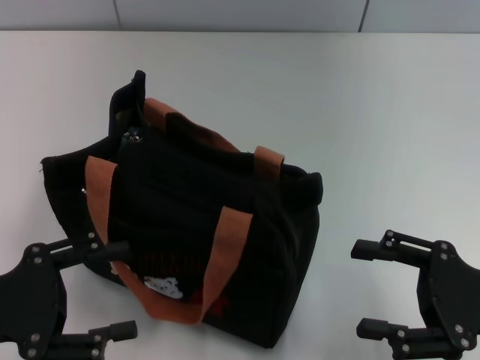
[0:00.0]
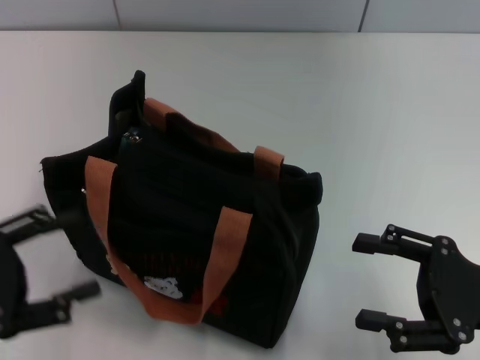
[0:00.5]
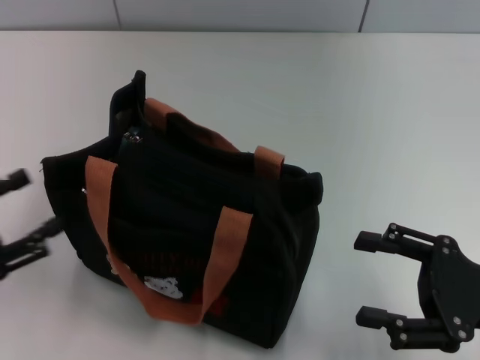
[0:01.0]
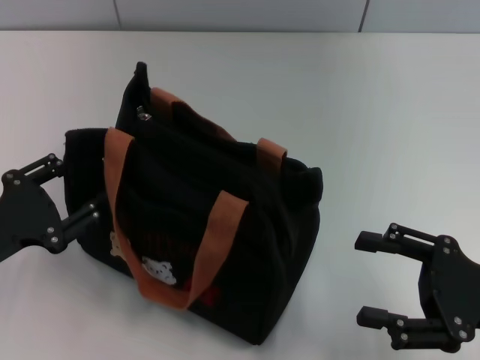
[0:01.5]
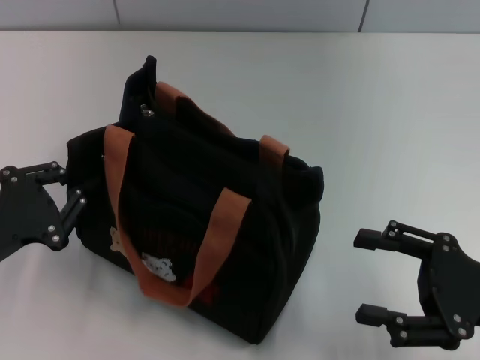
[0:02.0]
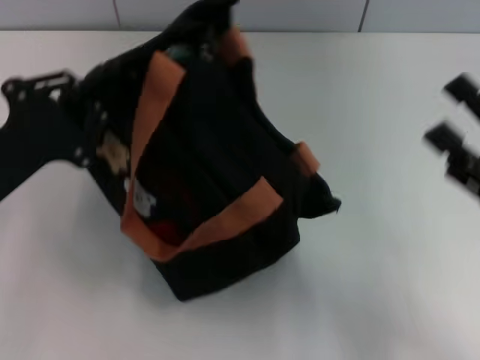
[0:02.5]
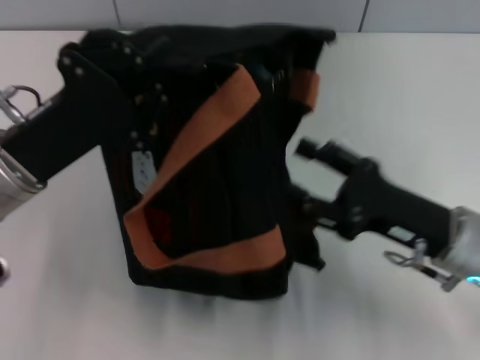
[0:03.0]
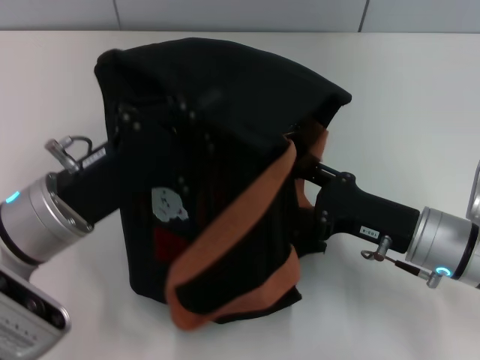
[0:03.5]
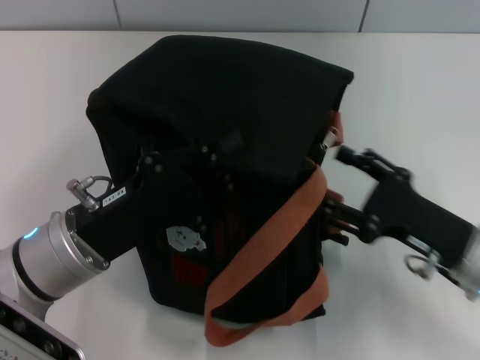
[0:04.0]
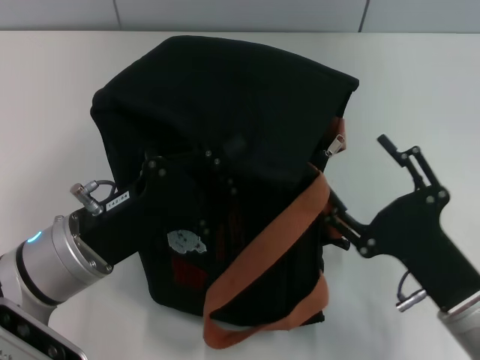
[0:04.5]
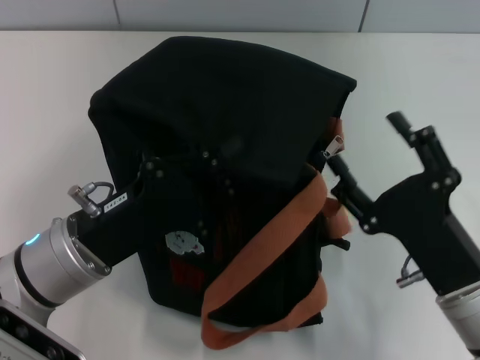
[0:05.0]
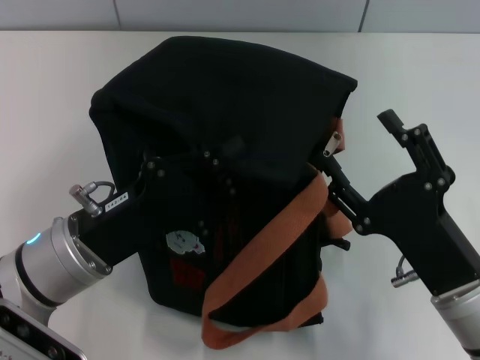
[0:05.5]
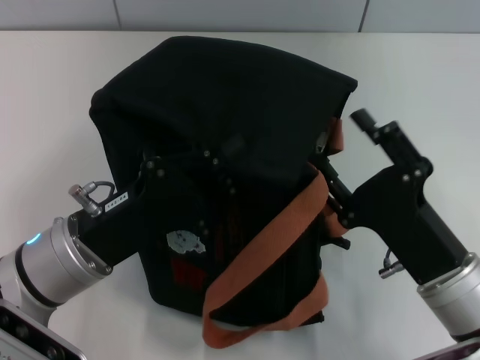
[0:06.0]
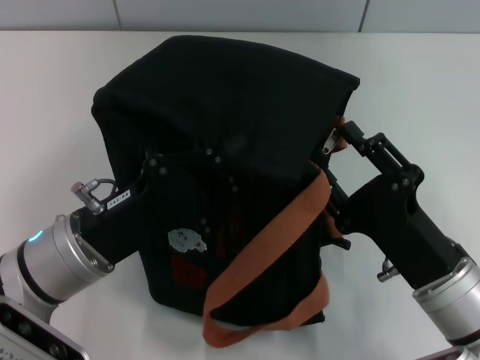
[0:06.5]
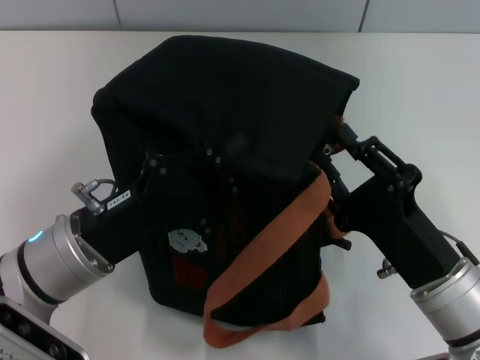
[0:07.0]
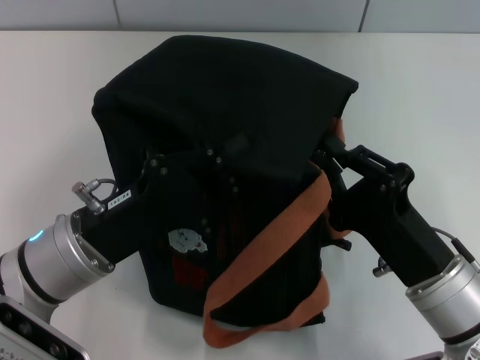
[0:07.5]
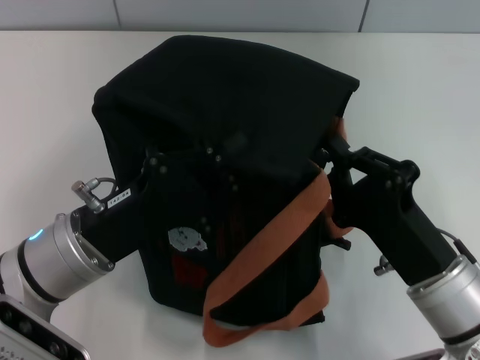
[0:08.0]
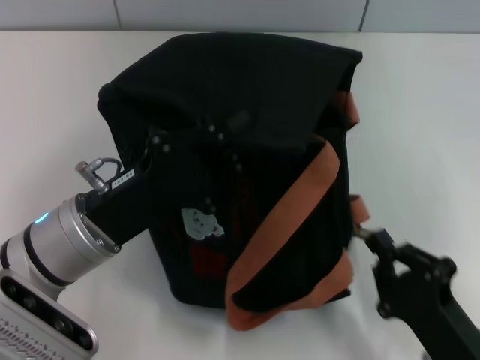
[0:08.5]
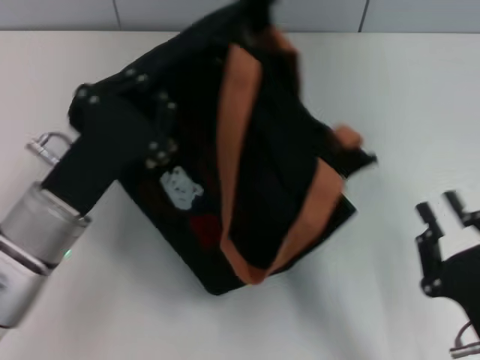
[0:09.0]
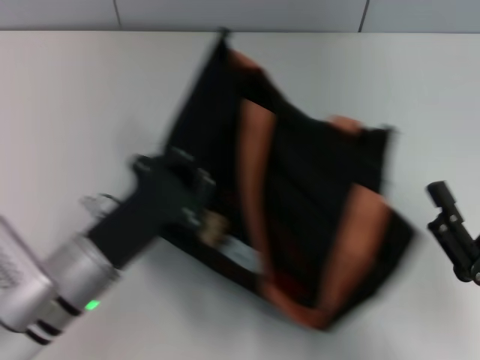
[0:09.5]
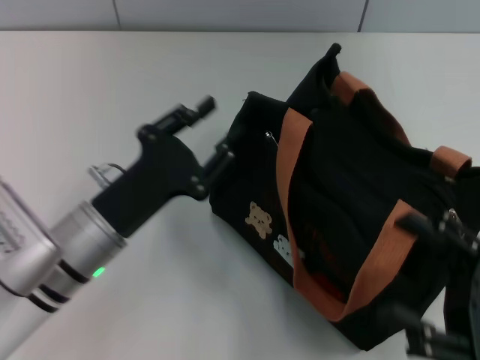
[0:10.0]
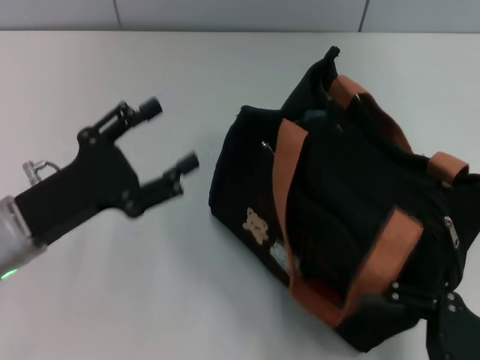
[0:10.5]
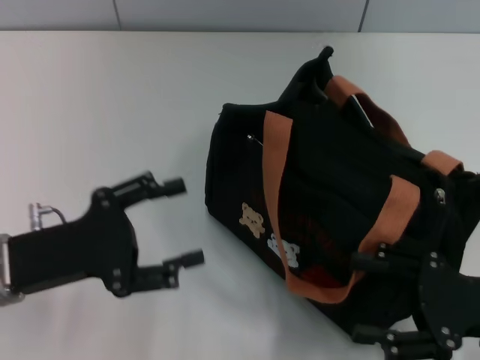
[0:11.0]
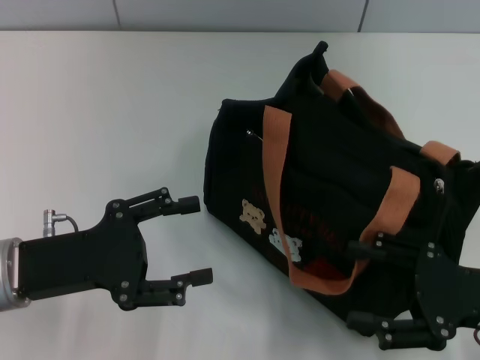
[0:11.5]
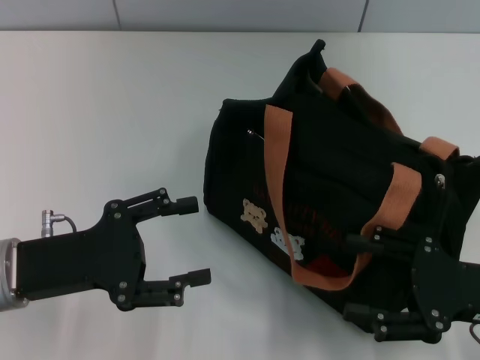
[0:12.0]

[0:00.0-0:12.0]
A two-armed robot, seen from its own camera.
Step, 0:00.0 to 0:08.5: Pull open the zipper with your right hand.
Step, 0:09.0 to 0:09.5: Grab the bag with your left hand.
0:00.0 to 0:02.0: The left gripper shifts by some 5 cm, and closes.
0:02.0 to 0:04.0: The left gripper travels to the right by roughly 10 cm, and closes its fingers.
0:04.0 to 0:06.0: The right gripper travels to the left by about 5 cm.
0:06.0 to 0:08.0: The right gripper closes.
0:08.0 to 0:10.0: The right gripper heads to the right, covering approximately 10 cm, and opens its fingers.
0:10.0 to 0:12.0: The right gripper is displaced forward by some 5 cm. The left gripper heads to the left, covering some 10 cm, and opens up.

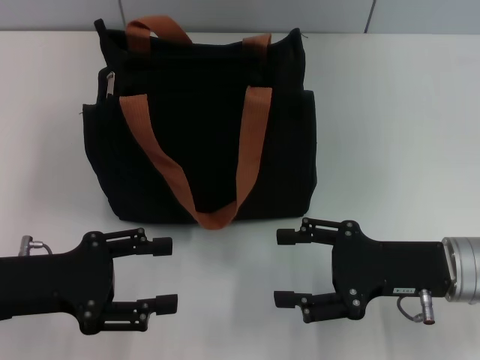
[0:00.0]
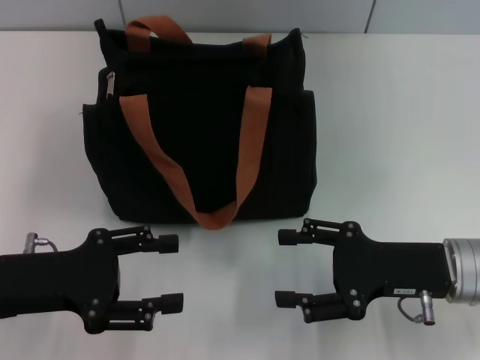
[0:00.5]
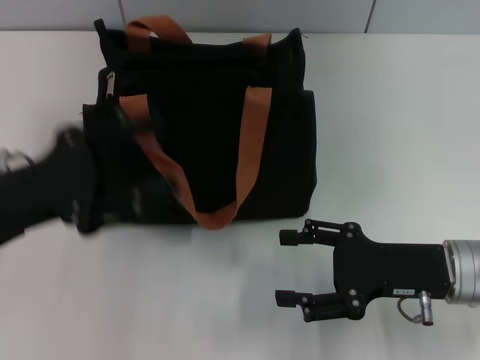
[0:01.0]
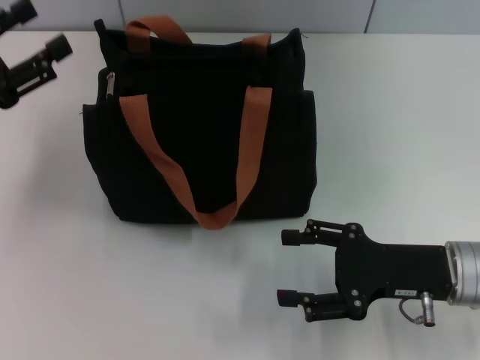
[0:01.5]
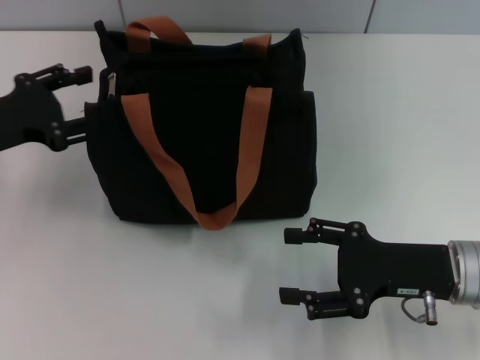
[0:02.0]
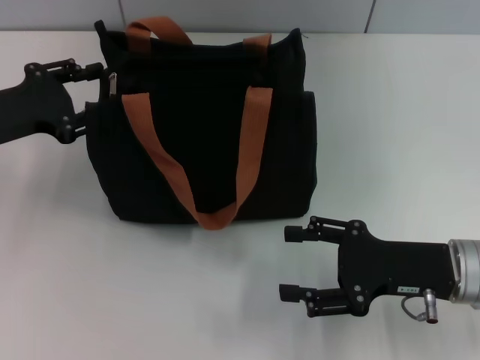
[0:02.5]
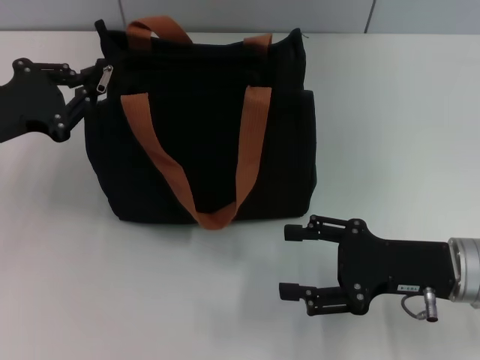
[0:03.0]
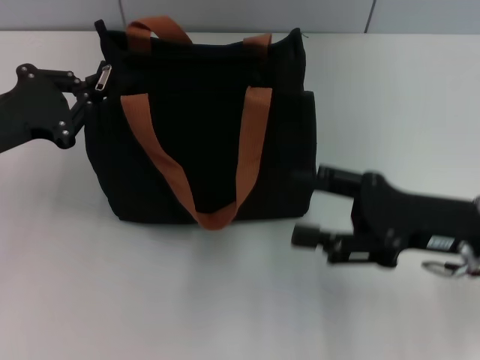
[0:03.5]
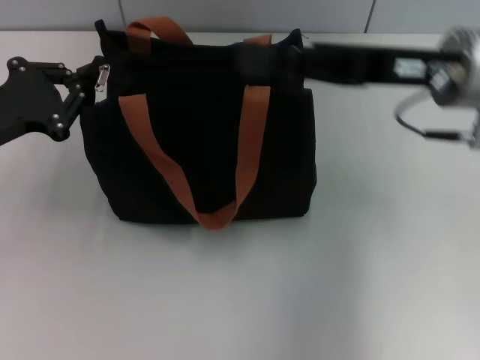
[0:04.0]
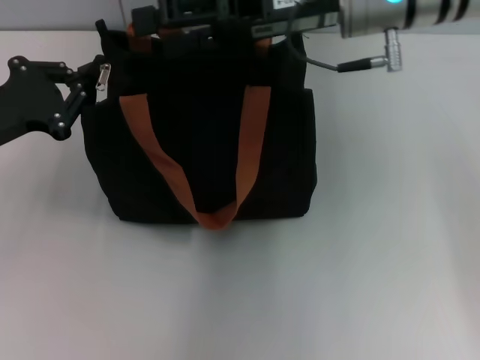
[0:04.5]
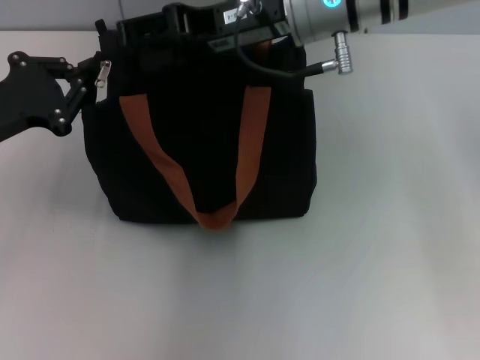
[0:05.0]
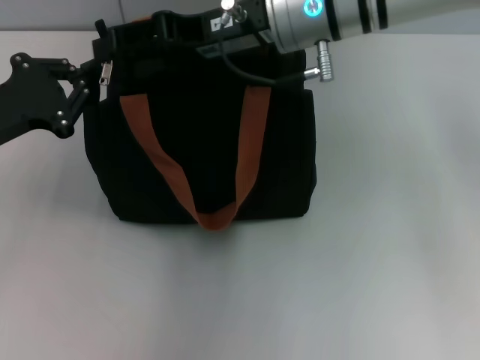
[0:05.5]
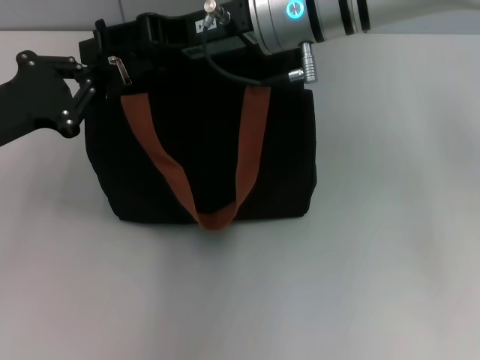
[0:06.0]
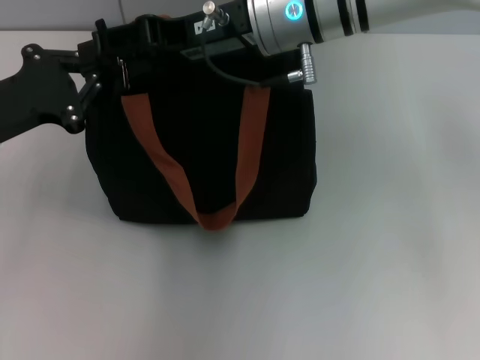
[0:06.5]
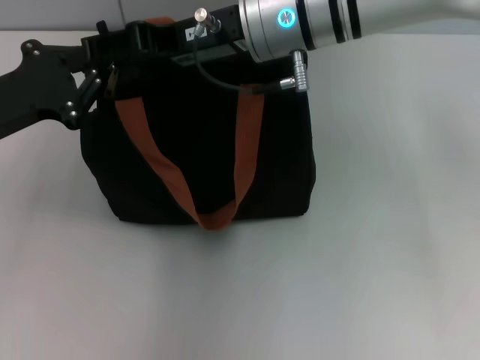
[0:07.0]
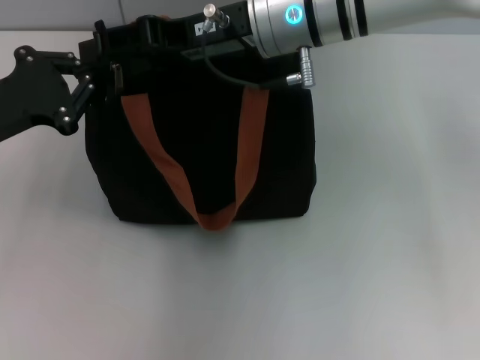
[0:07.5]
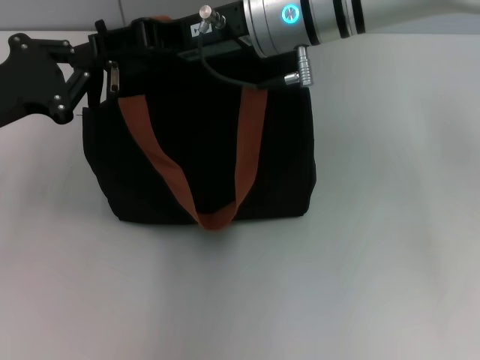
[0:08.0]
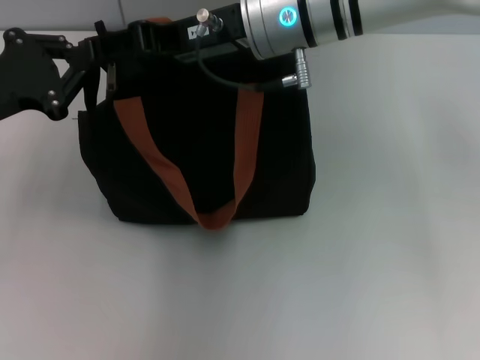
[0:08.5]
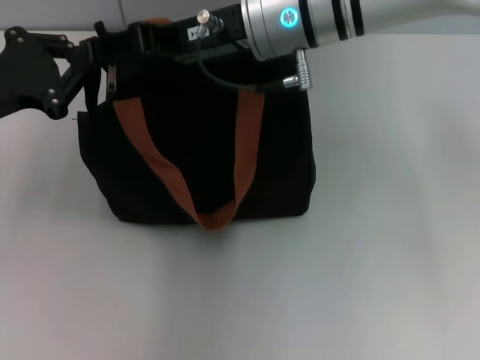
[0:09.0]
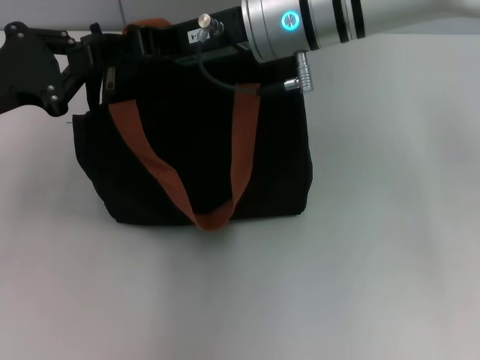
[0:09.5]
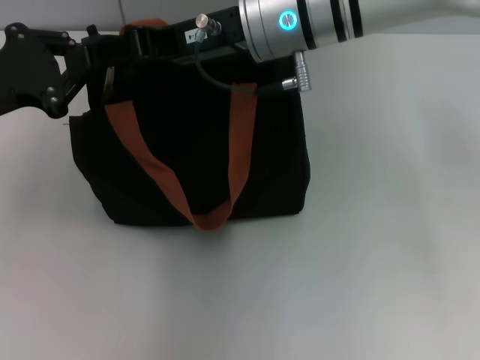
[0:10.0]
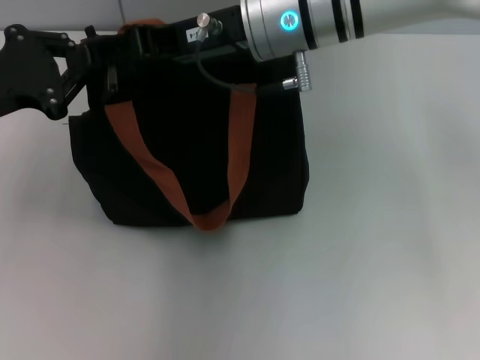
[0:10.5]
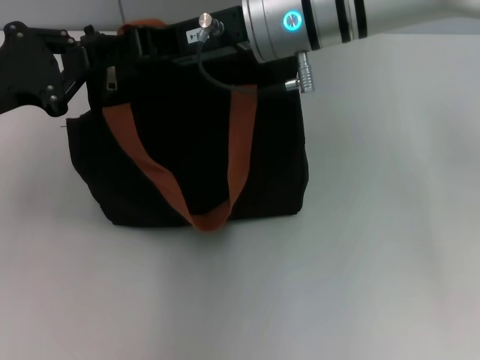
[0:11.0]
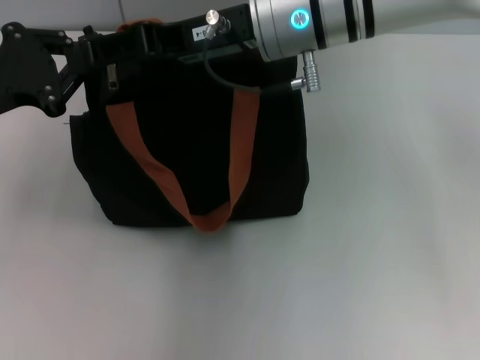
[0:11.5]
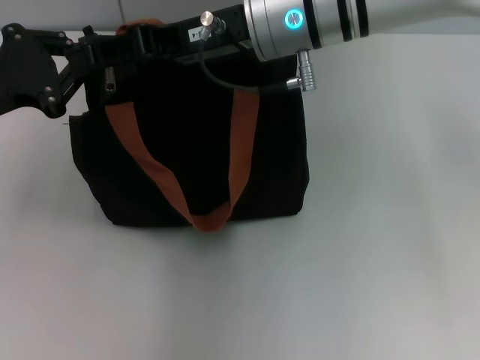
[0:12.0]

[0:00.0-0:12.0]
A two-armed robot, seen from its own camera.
0:00.0 to 0:02.0: The left gripper goes roughly 10 cm forward.
0:02.0 to 0:04.0: The right gripper is displaced upward and forward by approximately 15 cm; the left gripper closes up.
0:04.0 to 0:06.0: The right gripper heads to the left and forward, covering roughly 15 cm.
0:06.0 to 0:10.0: The grippers stay close to where they were, moving slightly.
0:10.0 to 0:12.0: The two grippers keep their place.

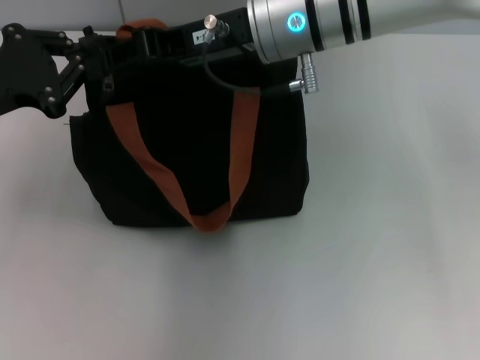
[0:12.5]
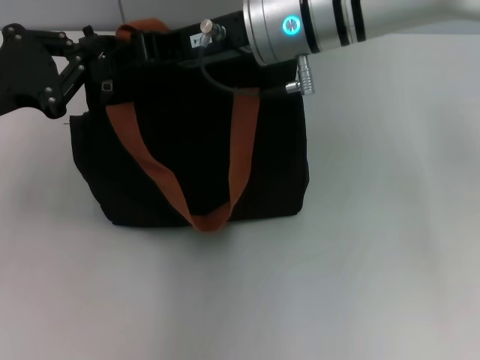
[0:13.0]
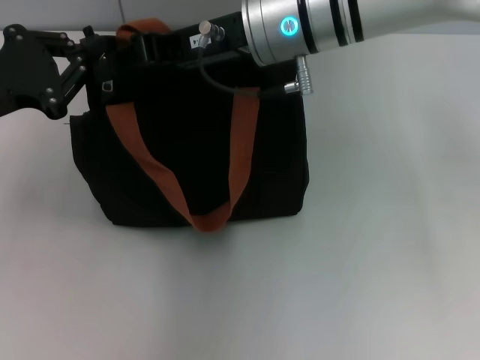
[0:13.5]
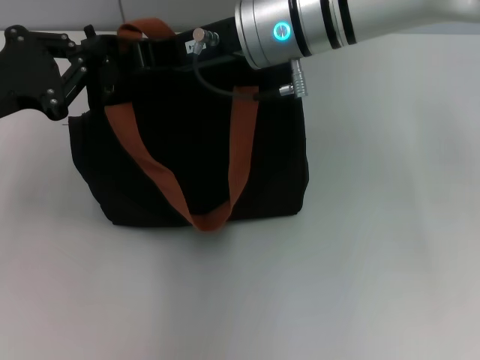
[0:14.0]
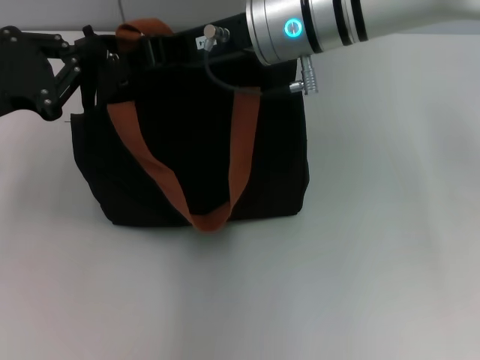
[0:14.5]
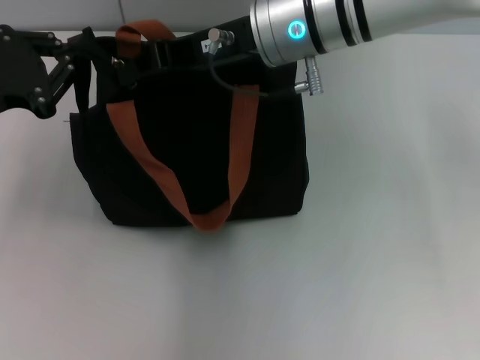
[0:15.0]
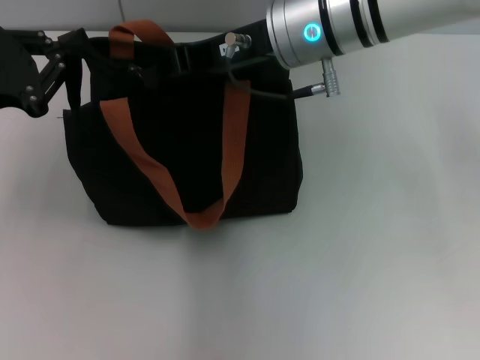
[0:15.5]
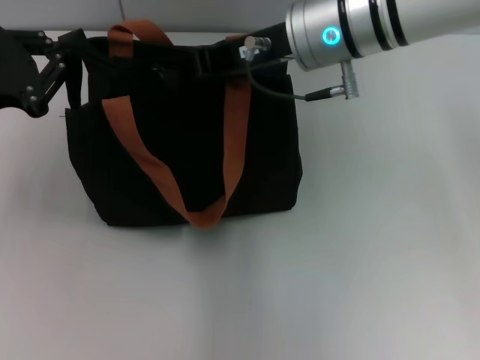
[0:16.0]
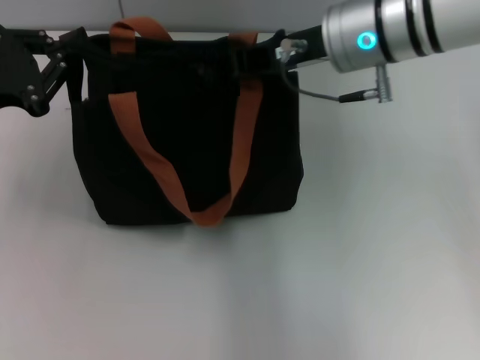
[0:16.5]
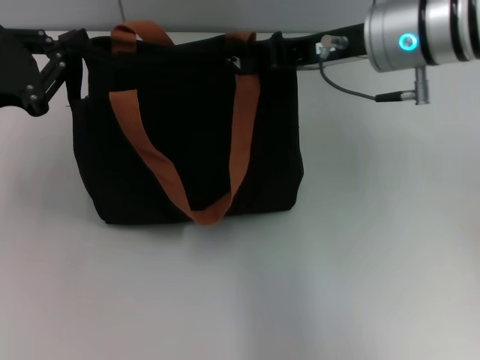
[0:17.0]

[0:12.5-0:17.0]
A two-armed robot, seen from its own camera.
0:12.5 to 0:14.5: The right gripper closes.
0:14.5 to 0:17.0: The right gripper is displaced to the right by about 10 cm.
